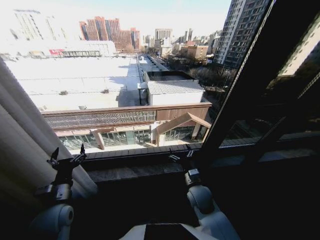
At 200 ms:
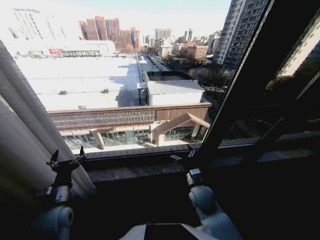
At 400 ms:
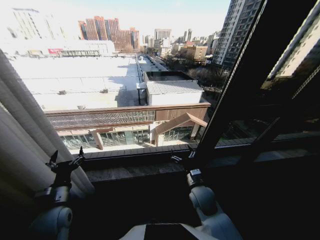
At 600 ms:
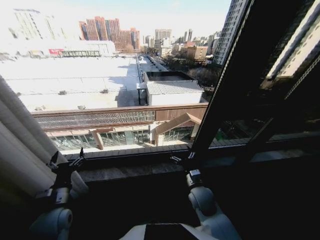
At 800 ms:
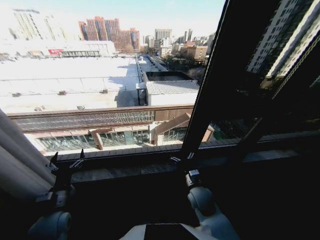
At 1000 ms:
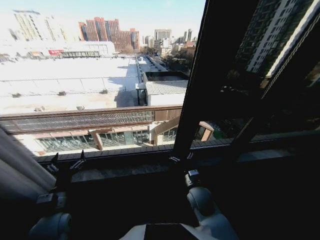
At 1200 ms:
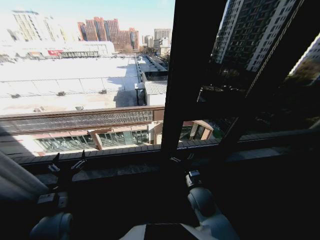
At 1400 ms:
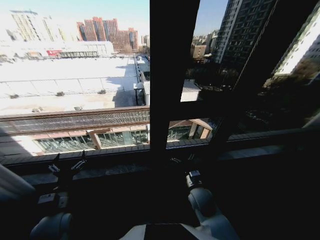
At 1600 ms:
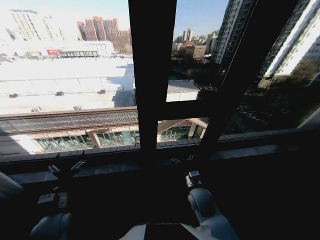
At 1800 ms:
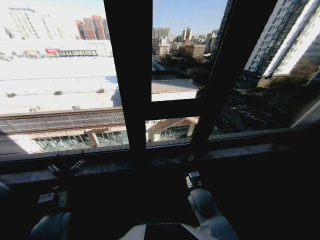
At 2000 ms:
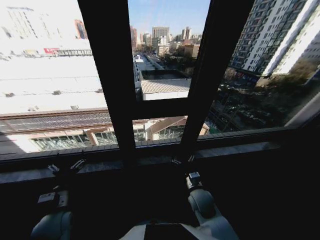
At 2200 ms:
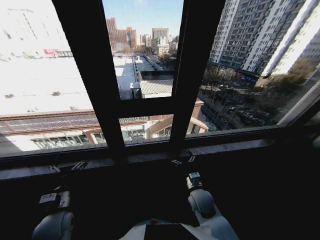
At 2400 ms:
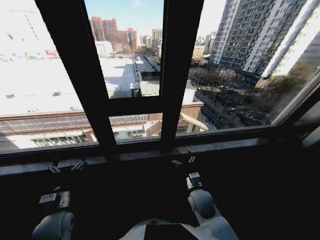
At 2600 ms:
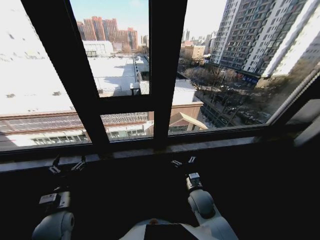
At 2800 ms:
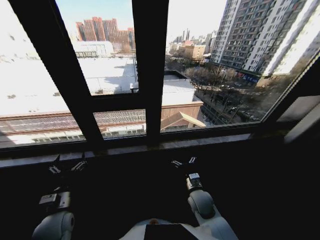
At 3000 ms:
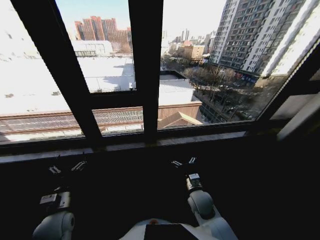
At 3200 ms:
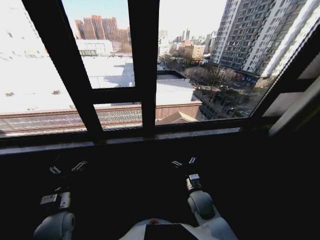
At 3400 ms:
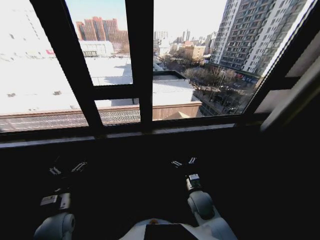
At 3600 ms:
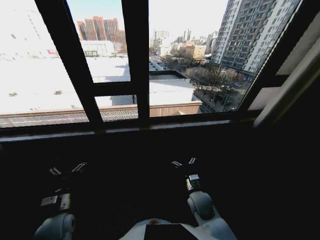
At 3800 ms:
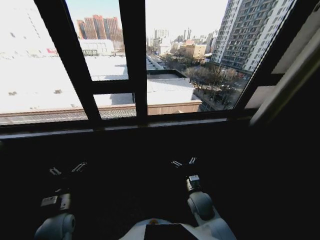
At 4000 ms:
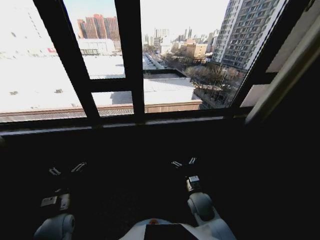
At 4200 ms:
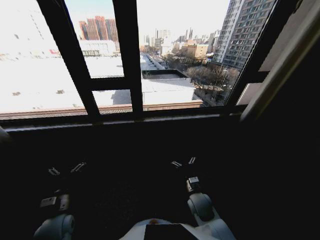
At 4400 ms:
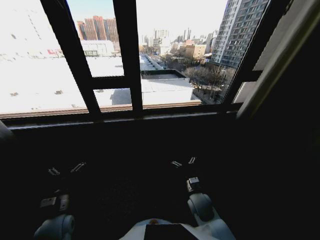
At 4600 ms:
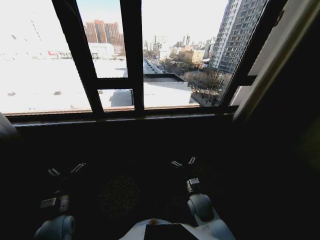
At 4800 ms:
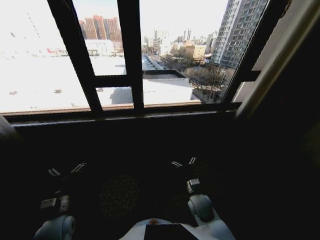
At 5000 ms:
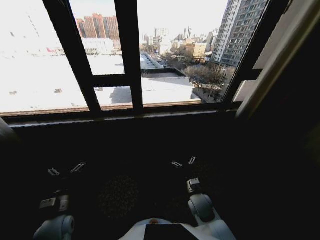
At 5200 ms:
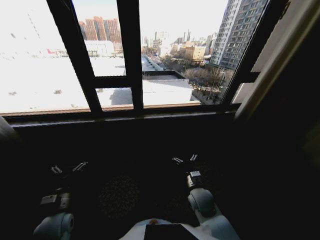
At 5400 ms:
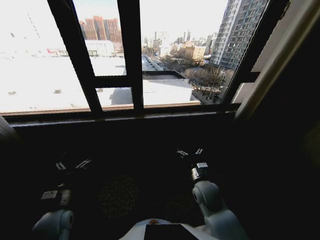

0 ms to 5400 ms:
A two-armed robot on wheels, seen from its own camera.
Task of the whole recording: Open the curtains by pulling them apart, changing their state from closed to fully open.
4000 ms to 5400 ms: The right gripper moves upward, about 5 cm.
